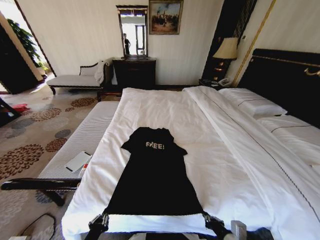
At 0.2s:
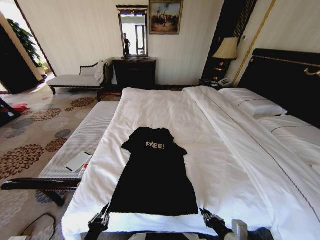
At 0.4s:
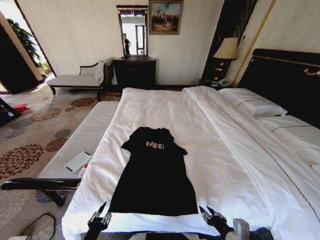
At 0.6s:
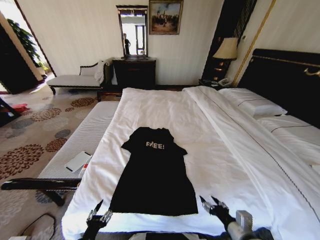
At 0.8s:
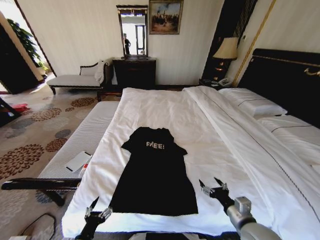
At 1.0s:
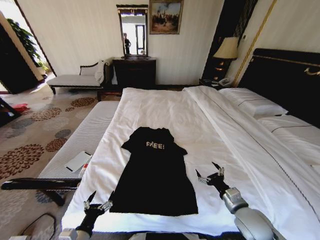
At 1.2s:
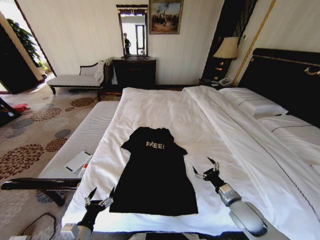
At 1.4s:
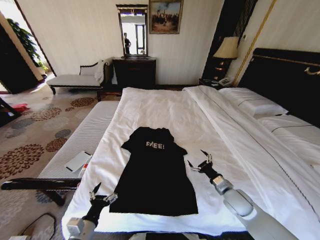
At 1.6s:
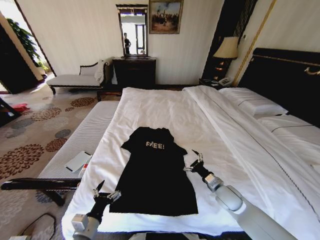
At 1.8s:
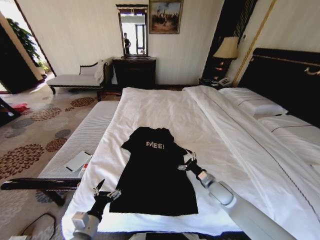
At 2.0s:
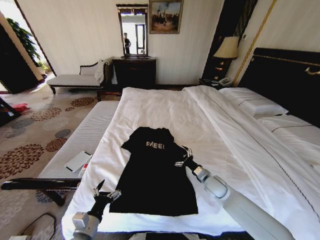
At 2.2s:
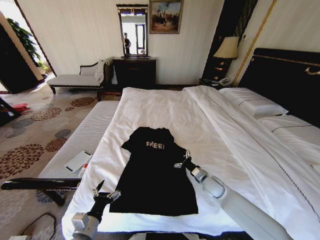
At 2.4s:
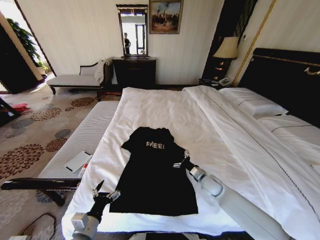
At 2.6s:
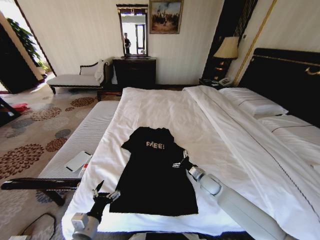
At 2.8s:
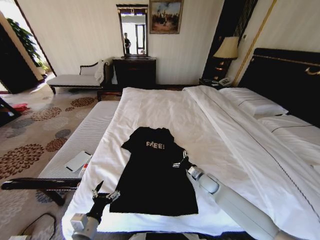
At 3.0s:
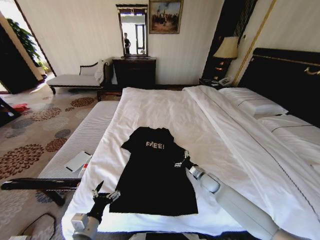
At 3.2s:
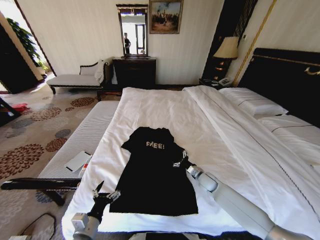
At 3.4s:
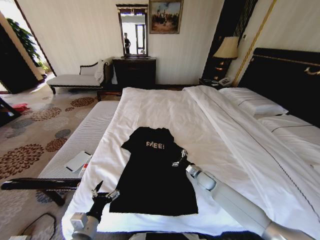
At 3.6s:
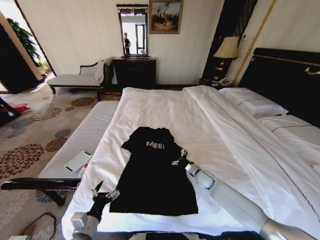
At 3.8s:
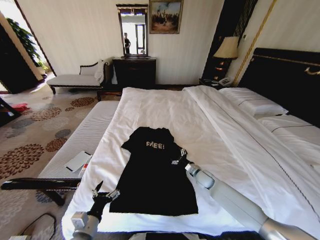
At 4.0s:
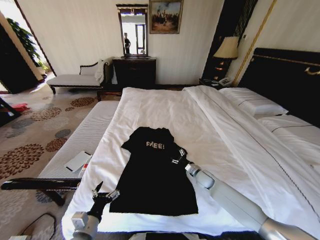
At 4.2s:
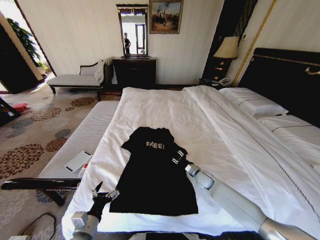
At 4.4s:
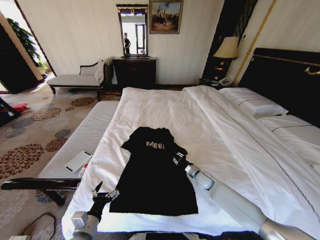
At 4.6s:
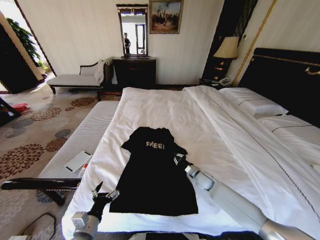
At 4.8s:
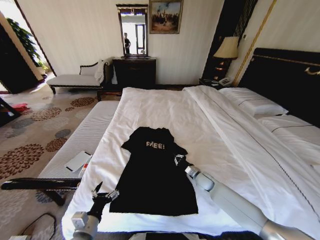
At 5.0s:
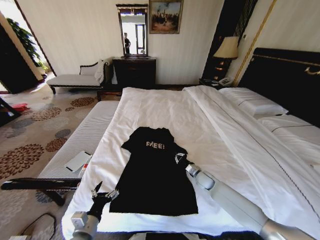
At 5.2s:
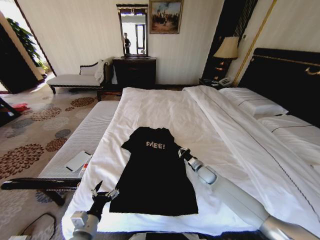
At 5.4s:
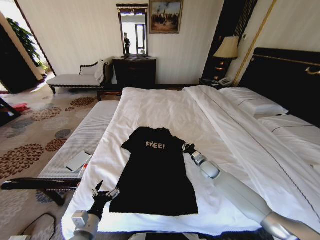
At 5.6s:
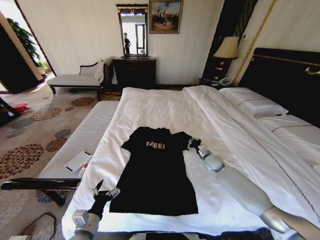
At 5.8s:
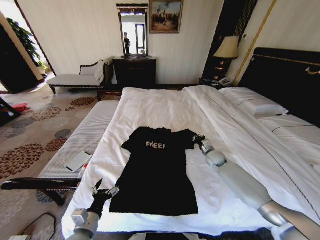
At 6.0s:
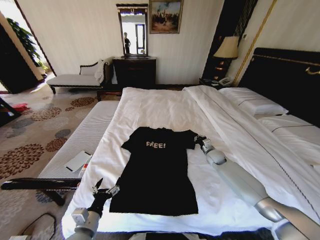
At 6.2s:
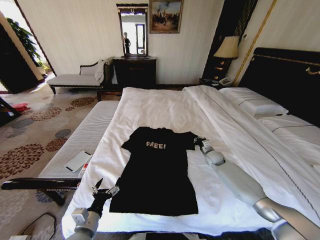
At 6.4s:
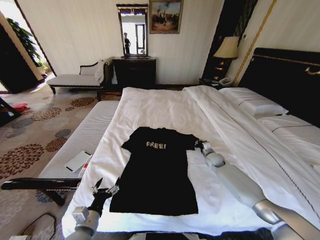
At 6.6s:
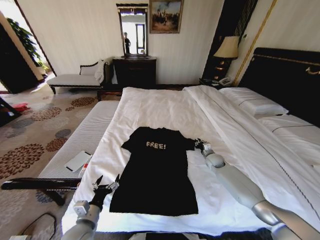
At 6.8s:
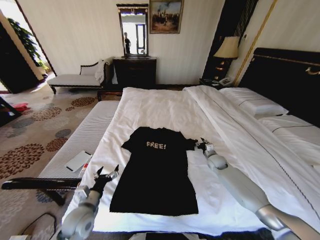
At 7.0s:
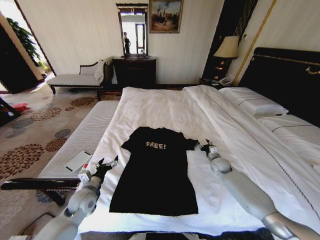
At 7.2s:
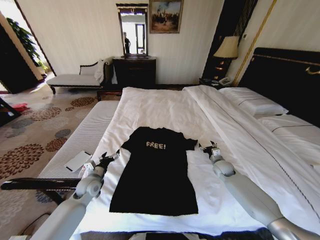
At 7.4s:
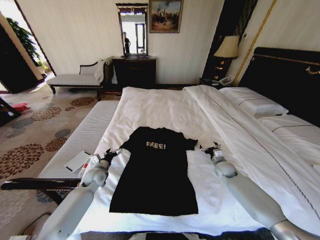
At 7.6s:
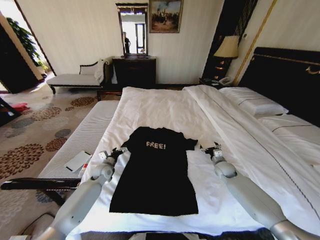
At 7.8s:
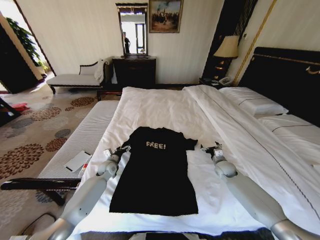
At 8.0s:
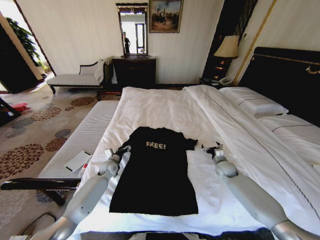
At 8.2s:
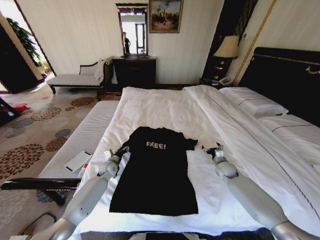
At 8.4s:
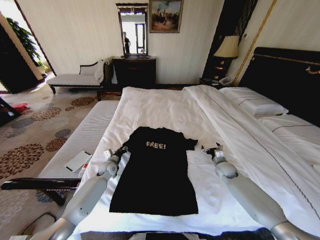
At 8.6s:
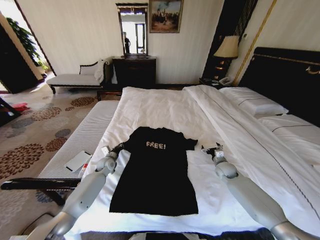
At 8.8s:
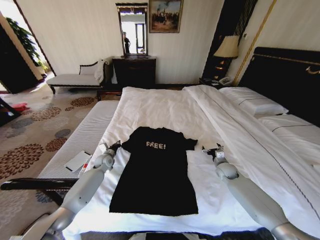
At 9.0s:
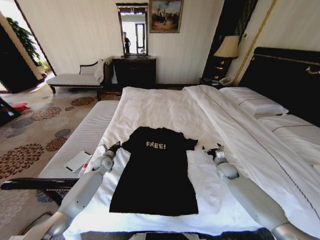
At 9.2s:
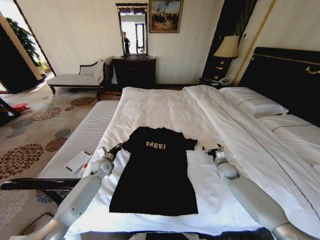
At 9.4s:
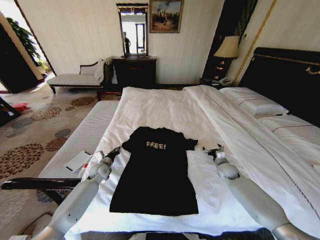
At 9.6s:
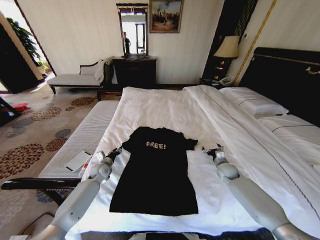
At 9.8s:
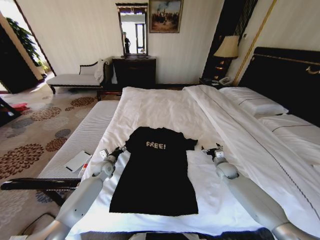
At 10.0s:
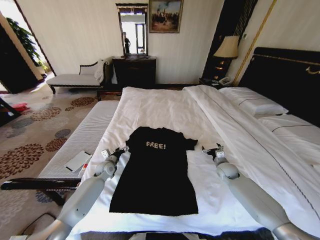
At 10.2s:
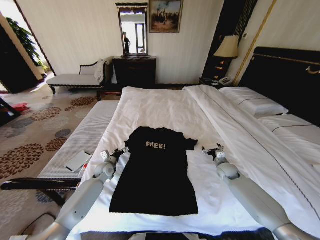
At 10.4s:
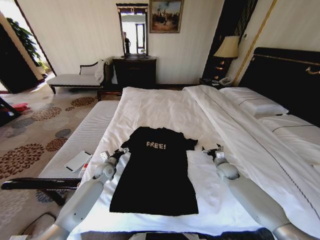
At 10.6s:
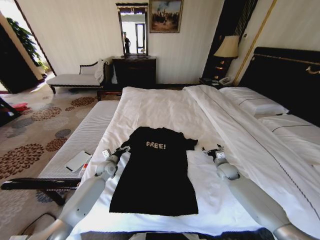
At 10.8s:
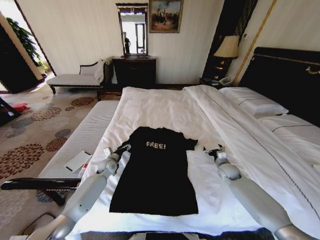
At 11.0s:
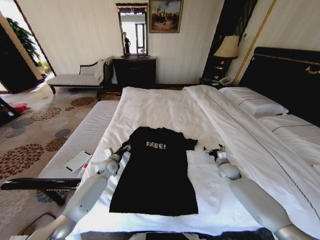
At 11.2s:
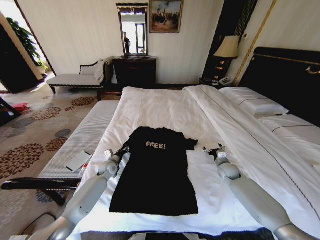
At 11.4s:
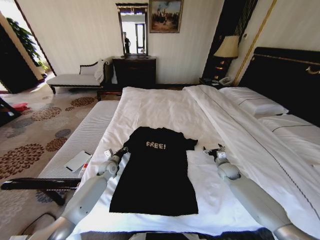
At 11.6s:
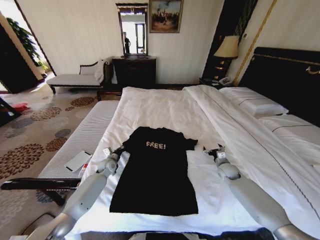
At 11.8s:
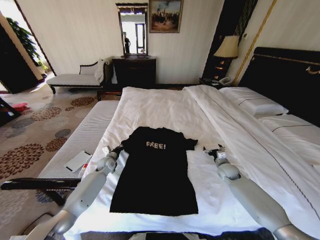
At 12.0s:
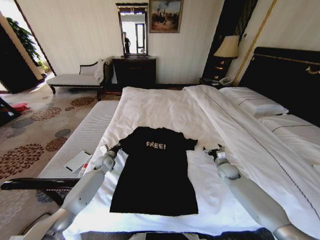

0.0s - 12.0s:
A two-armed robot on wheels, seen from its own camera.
Task of the whole recording: Fold the clothes on the bed.
0.0s - 1.6s: The right gripper moves forward, approximately 20 cm, and opens up; the left gripper goes roughly 5 cm forward, and opens.
1.6s - 3.0s: The right gripper travels forward and downward by roughly 10 cm.
3.0s - 4.4s: The right gripper closes.
4.4s - 6.0s: The right gripper is displaced forward, to the right and upward by some 15 cm.
6.0s - 7.6s: The left gripper moves forward, about 30 cm. Meanwhile the right gripper heads backward, covering roughly 5 cm, and opens up.
7.6s - 9.0s: The left gripper goes roughly 5 cm forward, and closes up.
9.0s - 10.4s: The left gripper opens up.
10.4s - 12.0s: The left gripper moves roughly 5 cm, and closes up.

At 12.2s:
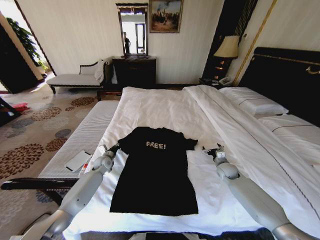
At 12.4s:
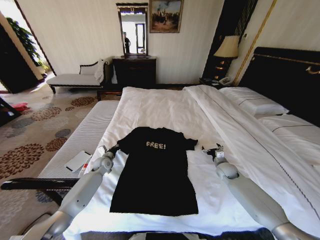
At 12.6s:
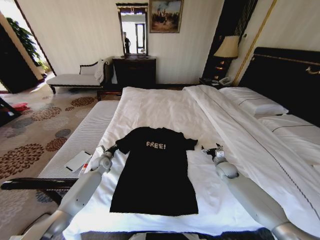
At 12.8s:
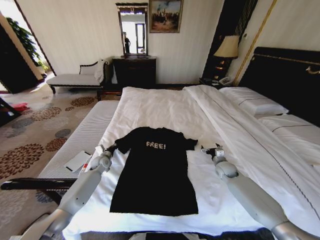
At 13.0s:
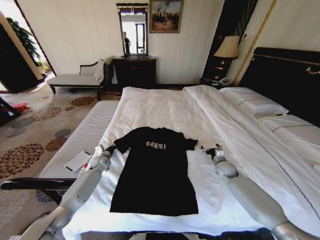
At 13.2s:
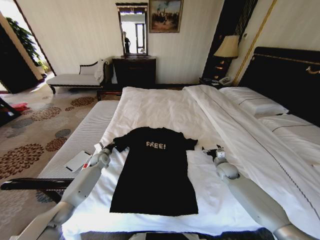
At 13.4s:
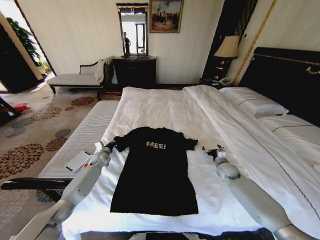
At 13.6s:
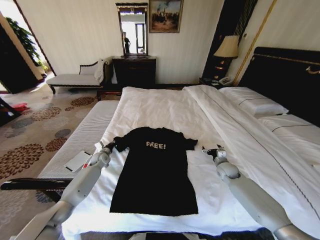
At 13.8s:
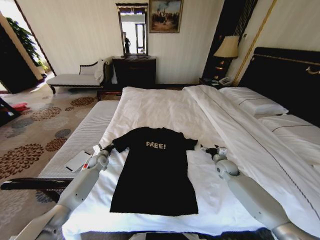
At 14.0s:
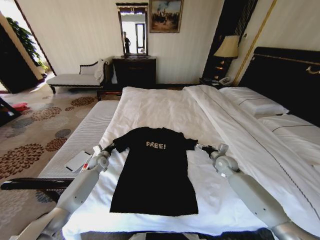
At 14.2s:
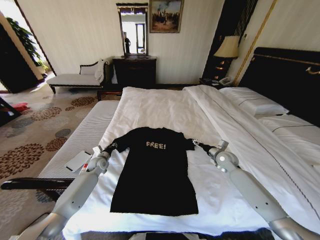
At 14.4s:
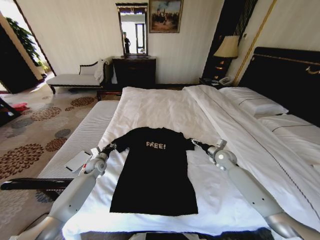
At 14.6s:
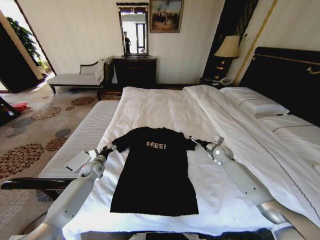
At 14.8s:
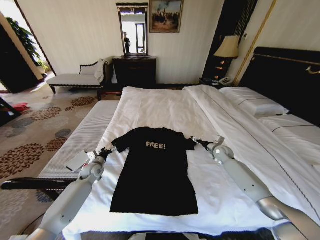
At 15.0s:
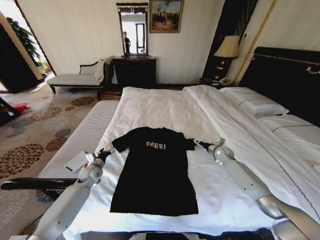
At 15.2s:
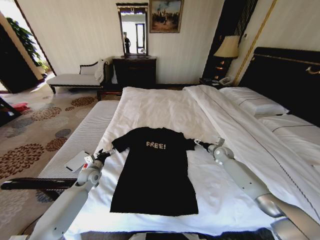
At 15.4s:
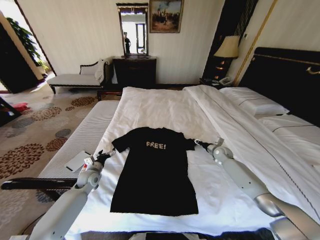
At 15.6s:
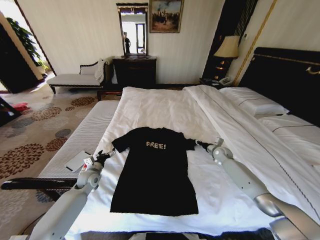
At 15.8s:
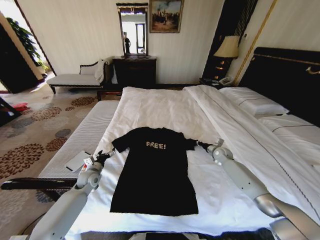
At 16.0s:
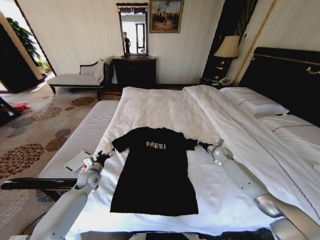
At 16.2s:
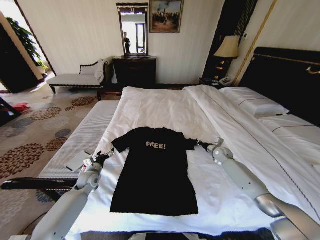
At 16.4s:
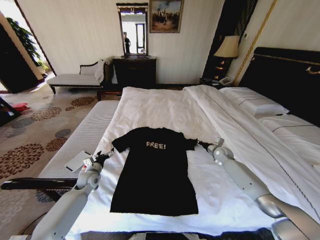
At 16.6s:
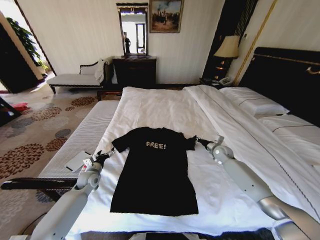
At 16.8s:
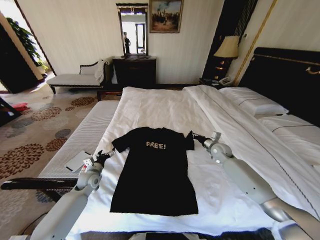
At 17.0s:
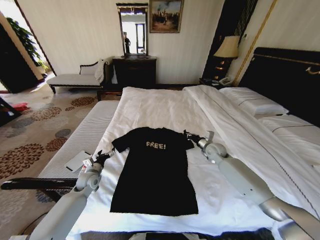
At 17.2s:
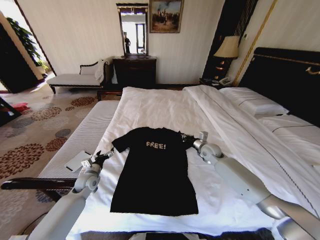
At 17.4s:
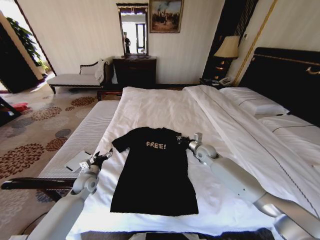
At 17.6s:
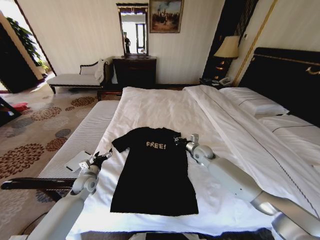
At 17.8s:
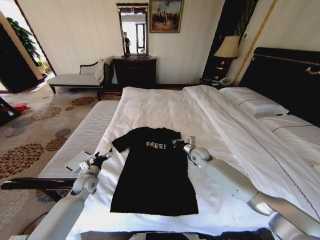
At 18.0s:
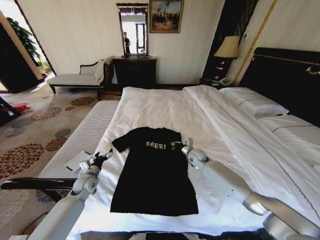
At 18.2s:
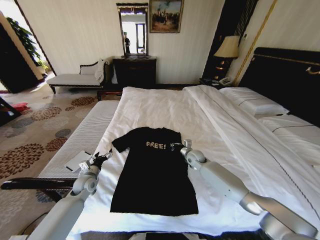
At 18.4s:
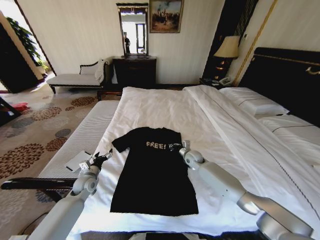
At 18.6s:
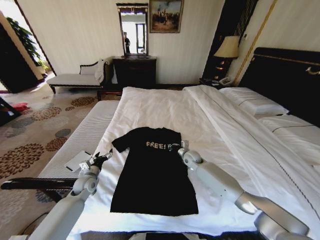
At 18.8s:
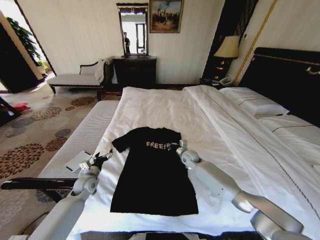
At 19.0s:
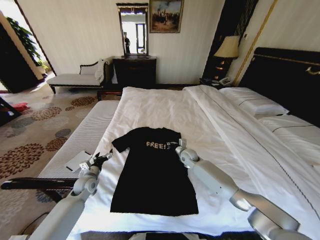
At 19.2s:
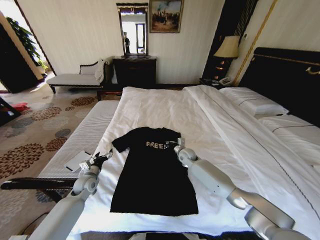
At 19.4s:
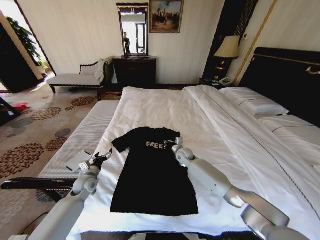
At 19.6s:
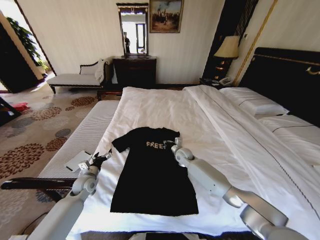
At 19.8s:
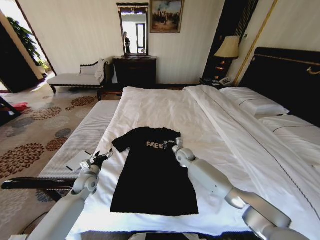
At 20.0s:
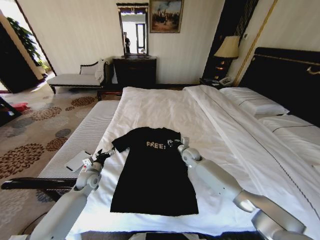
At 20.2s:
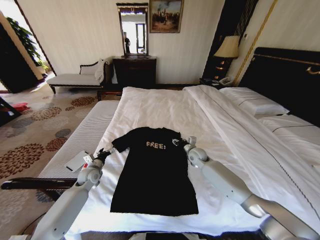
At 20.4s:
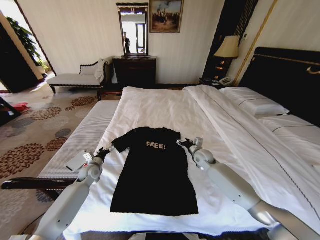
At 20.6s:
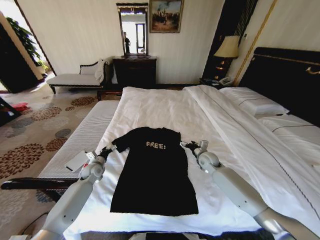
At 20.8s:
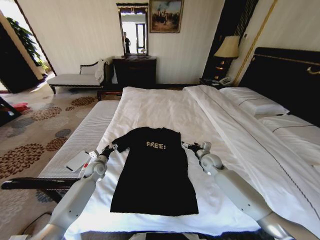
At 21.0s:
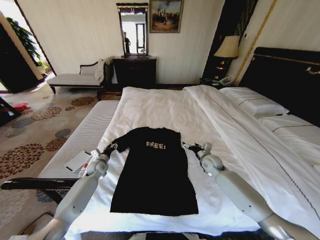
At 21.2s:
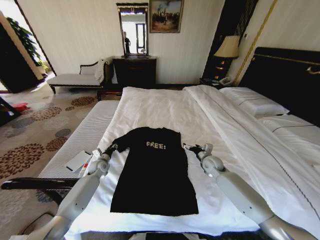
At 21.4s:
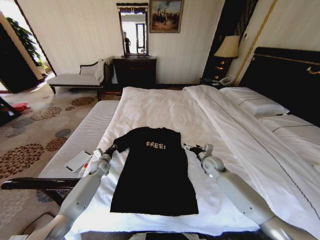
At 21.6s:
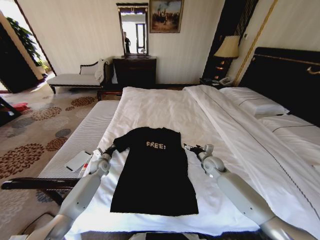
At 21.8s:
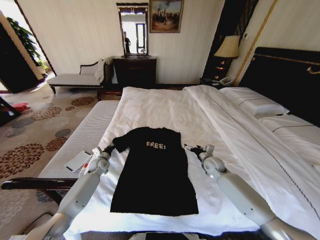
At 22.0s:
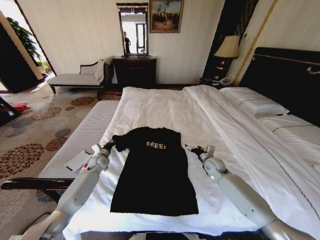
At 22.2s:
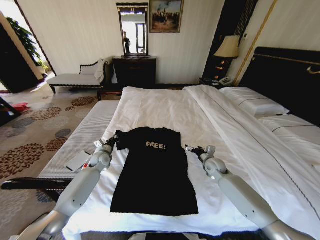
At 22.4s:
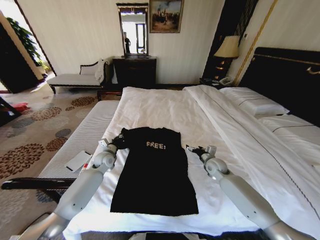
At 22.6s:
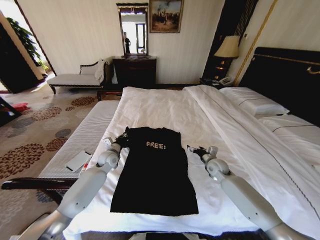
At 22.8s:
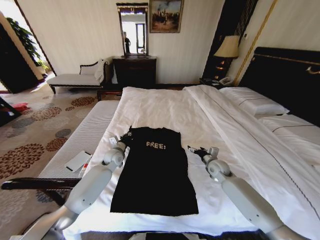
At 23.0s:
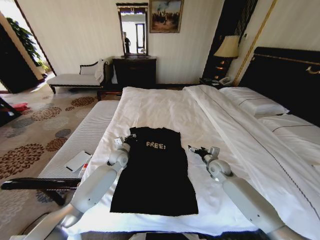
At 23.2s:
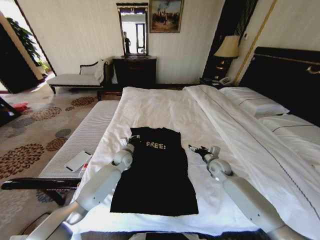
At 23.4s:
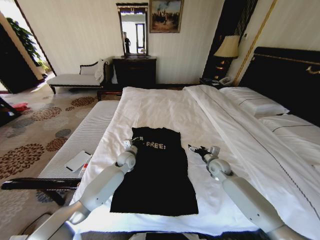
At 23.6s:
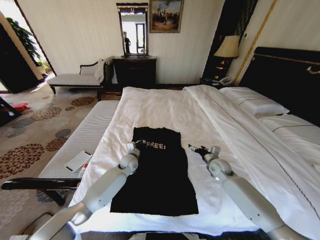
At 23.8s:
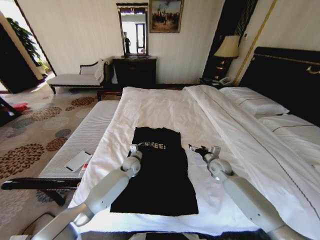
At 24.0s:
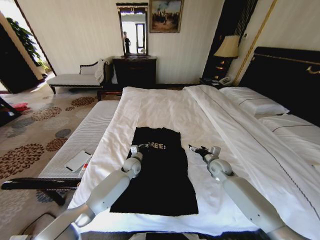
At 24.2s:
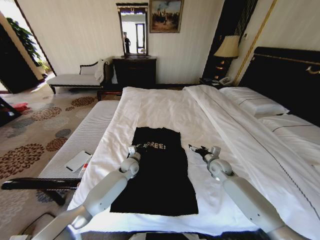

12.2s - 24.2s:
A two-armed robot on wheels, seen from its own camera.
Task of the whole recording: Fold the clothes on the bed.
12.2s - 13.8s: The grippers move only a little.
13.8s - 15.2s: The left gripper is displaced backward by some 10 cm, and opens. Meanwhile the right gripper travels forward by approximately 10 cm.
15.2s - 16.6s: The right gripper closes its fingers.
16.6s - 18.2s: The right gripper heads to the left, covering approximately 15 cm.
18.2s - 19.8s: The right gripper shifts about 5 cm to the left.
19.8s - 21.2s: The left gripper moves forward, some 10 cm, and closes its fingers; the right gripper heads to the right and backward, covering roughly 15 cm, and opens up.
21.2s - 22.6s: The left gripper heads upward and to the right, covering roughly 10 cm, and closes.
22.6s - 24.2s: The left gripper shifts some 10 cm to the right and downward.
